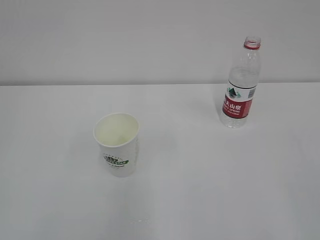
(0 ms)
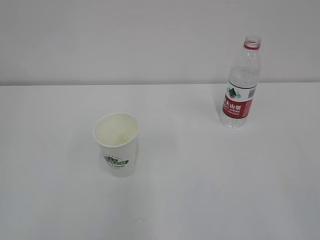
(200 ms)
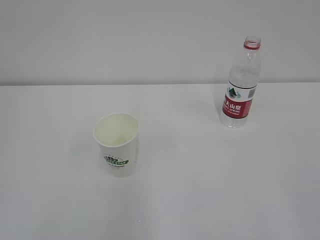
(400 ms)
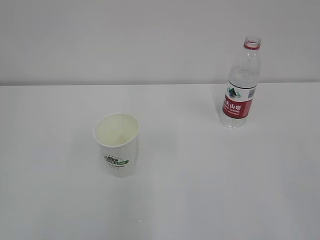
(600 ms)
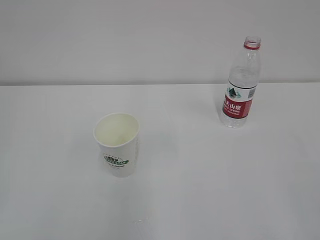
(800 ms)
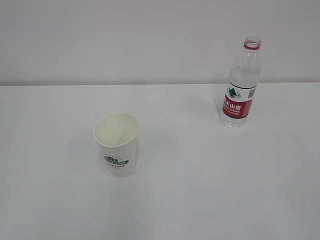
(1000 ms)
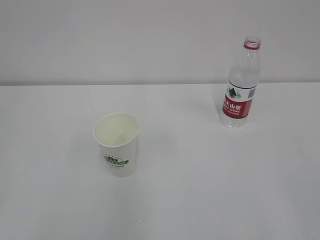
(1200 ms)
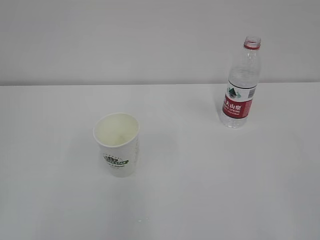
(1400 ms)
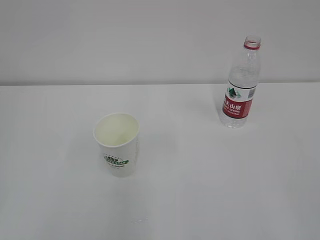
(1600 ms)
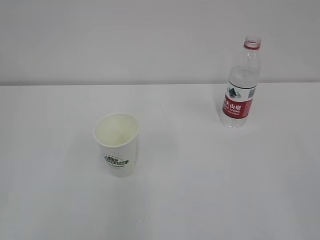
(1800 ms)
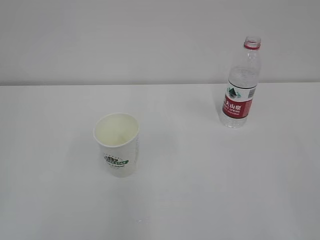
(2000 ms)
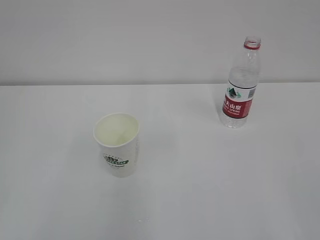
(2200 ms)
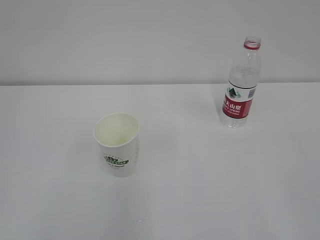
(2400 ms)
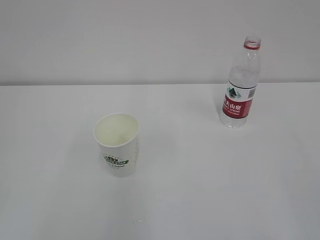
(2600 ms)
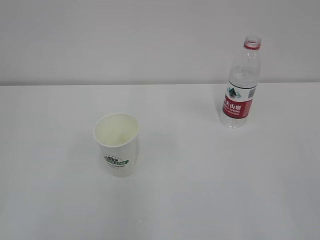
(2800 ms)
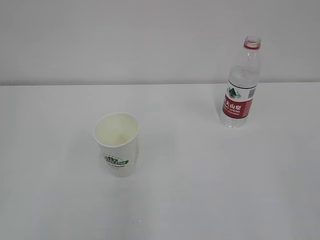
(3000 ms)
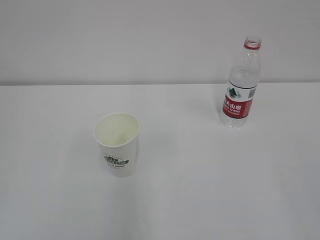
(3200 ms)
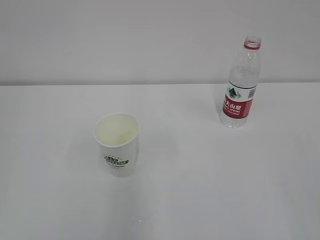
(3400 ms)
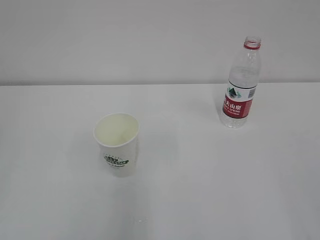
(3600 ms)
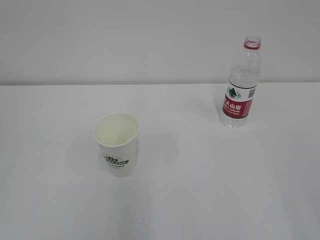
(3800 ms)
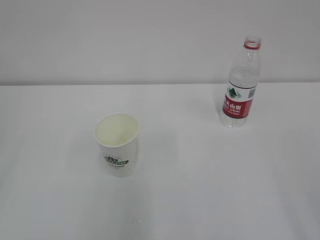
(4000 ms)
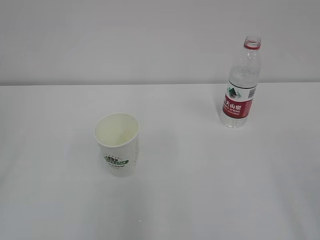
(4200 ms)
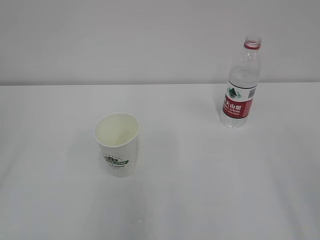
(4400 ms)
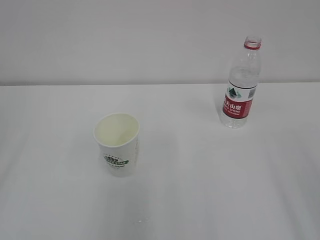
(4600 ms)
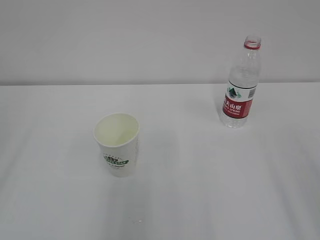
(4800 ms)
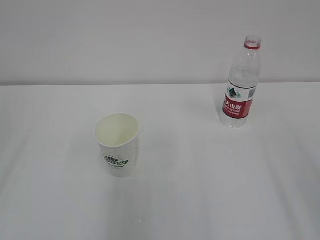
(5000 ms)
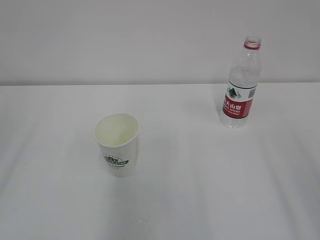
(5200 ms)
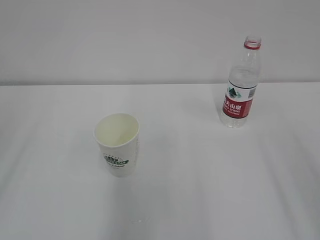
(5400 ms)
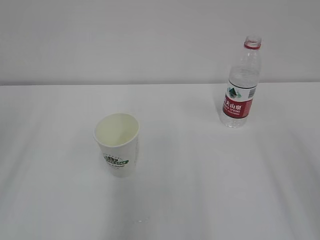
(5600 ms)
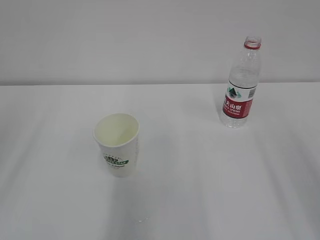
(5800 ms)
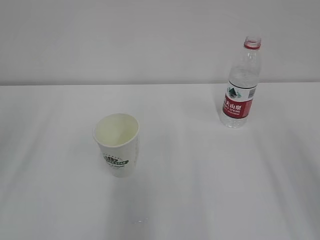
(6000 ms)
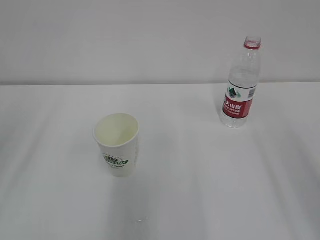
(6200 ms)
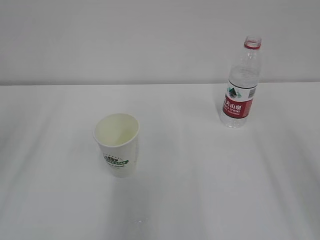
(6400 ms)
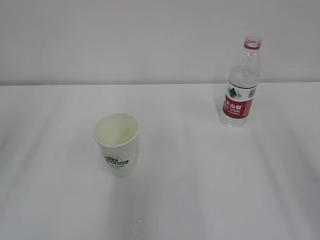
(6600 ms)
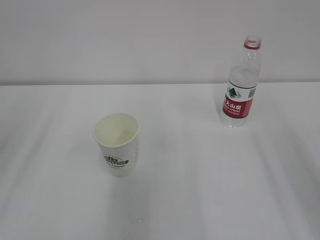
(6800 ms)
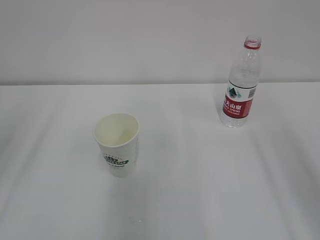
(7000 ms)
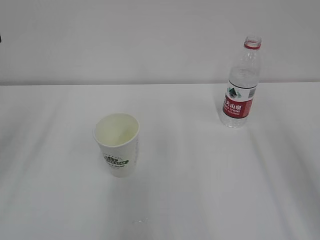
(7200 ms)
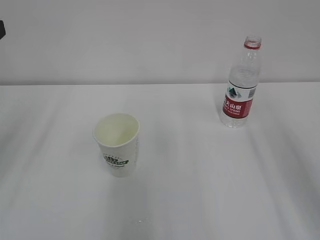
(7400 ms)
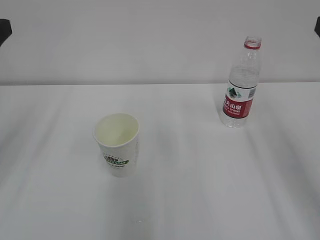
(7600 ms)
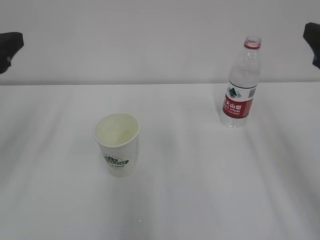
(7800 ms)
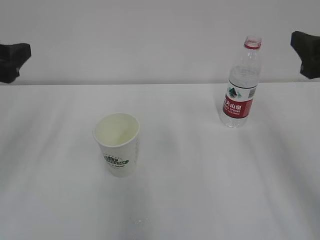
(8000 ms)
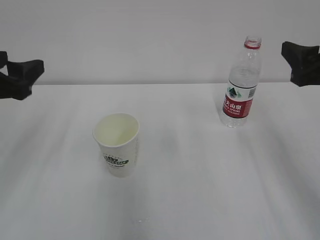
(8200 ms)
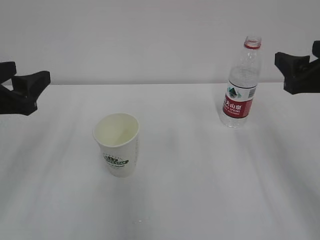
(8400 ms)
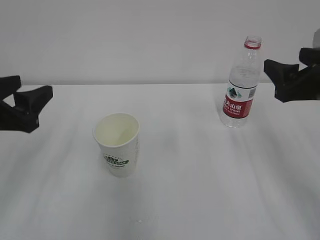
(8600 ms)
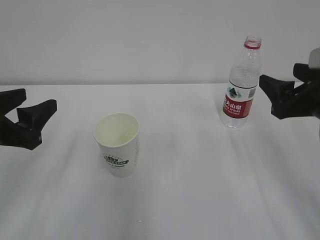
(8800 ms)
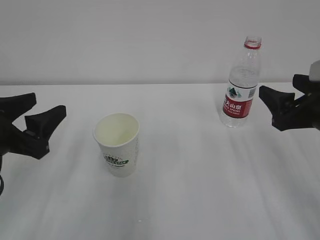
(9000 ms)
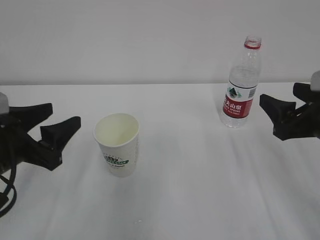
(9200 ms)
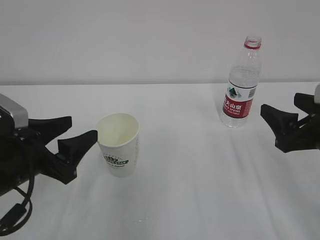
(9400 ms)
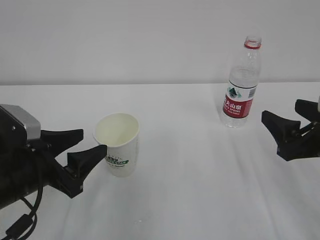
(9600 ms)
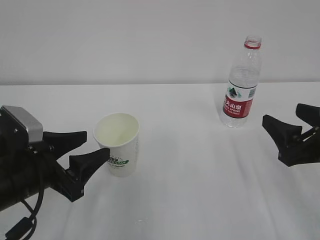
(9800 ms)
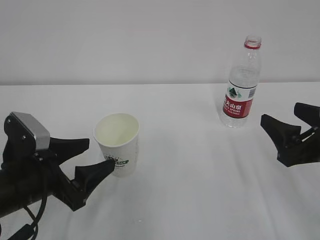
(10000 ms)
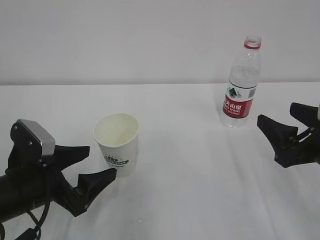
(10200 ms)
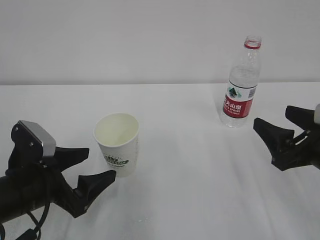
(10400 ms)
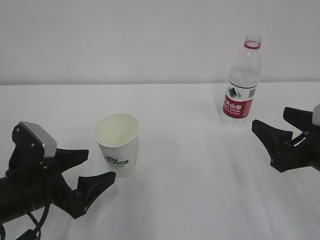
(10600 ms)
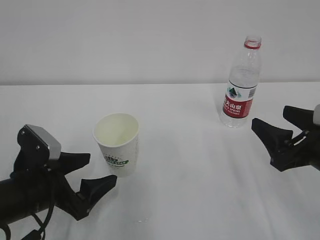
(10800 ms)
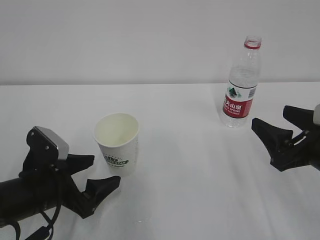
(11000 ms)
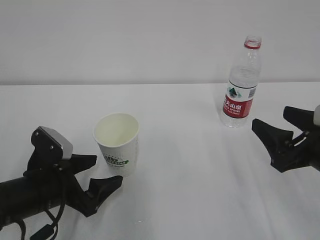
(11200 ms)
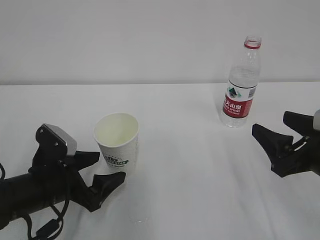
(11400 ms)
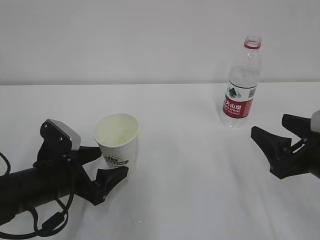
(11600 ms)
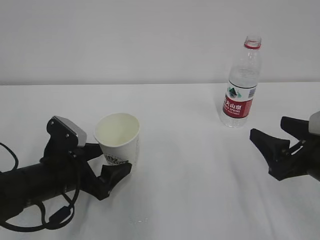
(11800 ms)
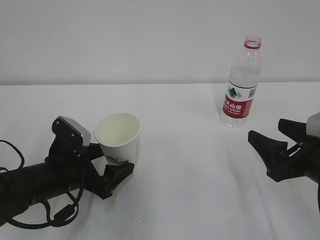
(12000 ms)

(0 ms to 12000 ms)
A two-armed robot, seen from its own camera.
7600 ms - 9000 ms: The grippers both shift downward by about 10 cm. The left gripper closes up.
9000 ms - 10400 ms: The right gripper ends up approximately 5 cm from where it was, while the left gripper is displaced downward by approximately 5 cm, and opens up.
10400 ms - 12000 ms: The left gripper shifts approximately 5 cm forward.

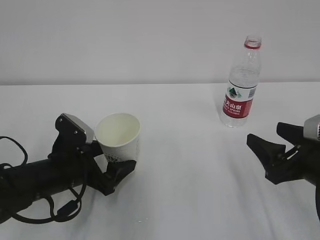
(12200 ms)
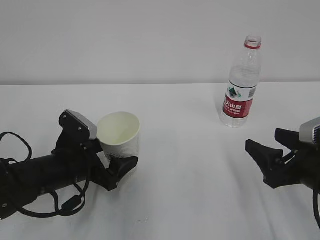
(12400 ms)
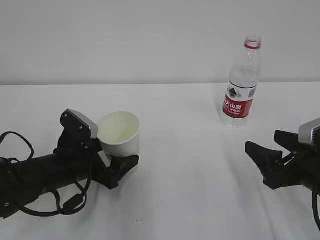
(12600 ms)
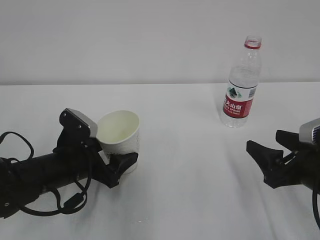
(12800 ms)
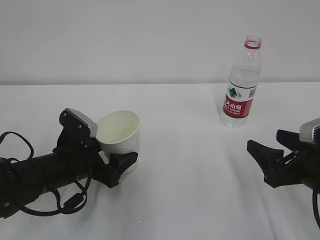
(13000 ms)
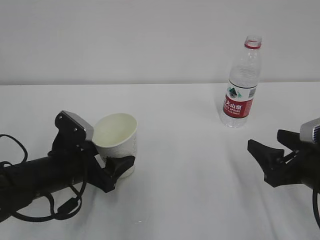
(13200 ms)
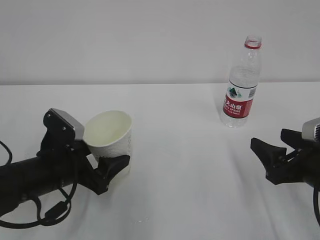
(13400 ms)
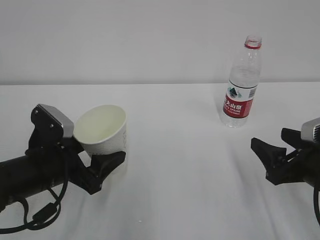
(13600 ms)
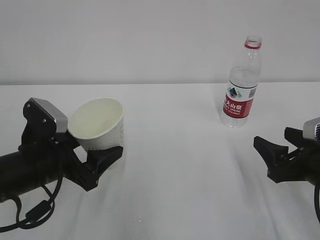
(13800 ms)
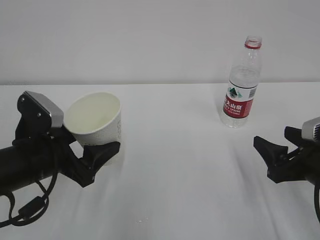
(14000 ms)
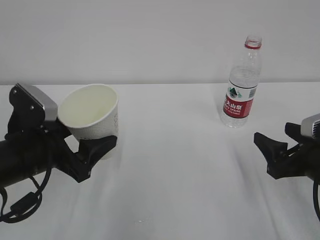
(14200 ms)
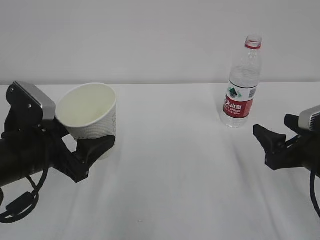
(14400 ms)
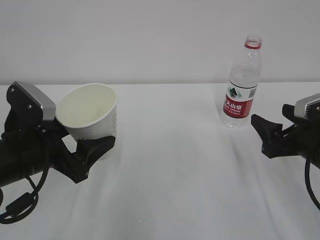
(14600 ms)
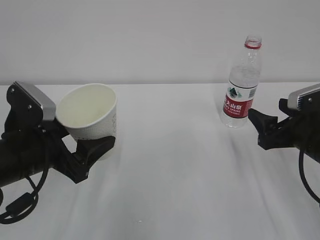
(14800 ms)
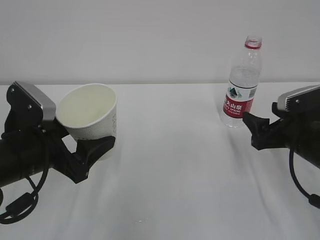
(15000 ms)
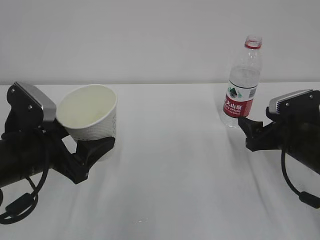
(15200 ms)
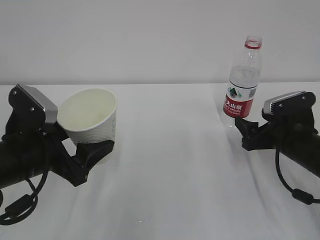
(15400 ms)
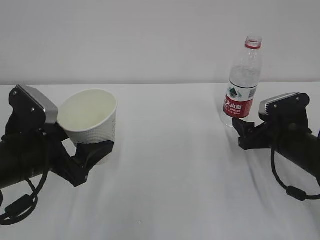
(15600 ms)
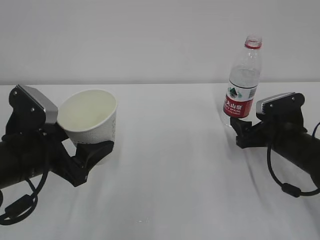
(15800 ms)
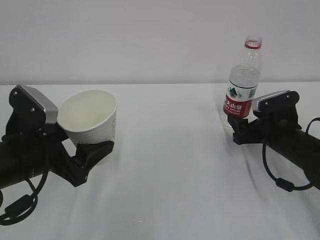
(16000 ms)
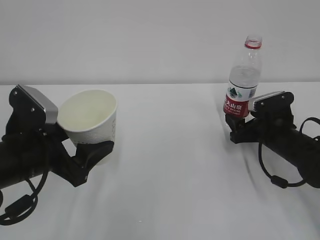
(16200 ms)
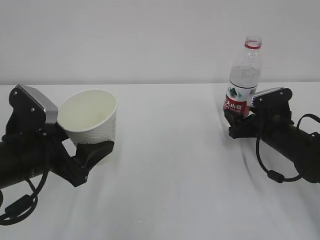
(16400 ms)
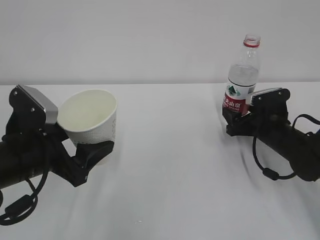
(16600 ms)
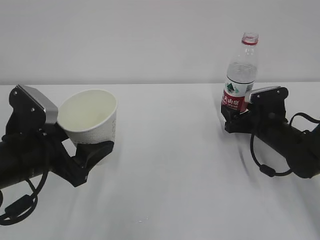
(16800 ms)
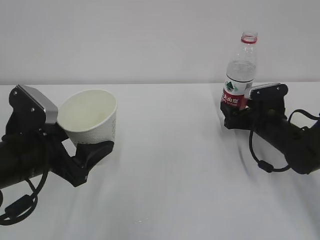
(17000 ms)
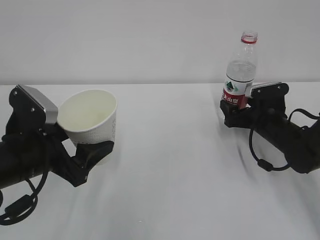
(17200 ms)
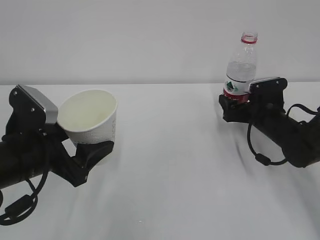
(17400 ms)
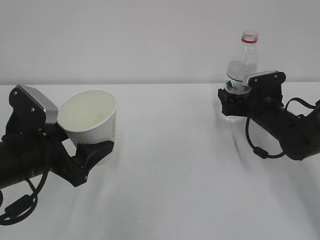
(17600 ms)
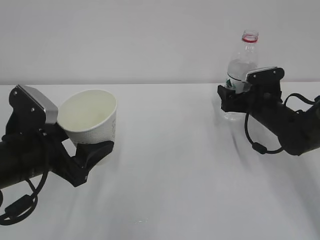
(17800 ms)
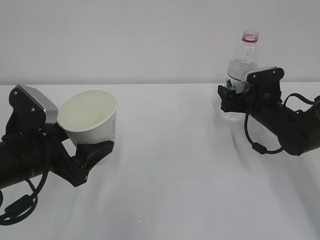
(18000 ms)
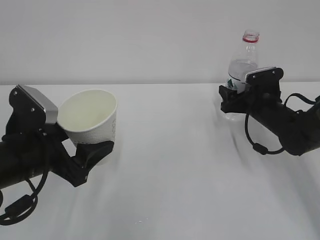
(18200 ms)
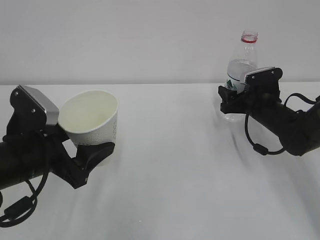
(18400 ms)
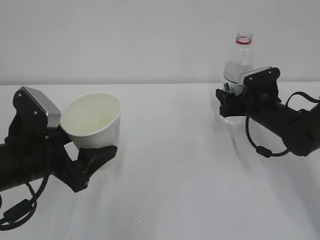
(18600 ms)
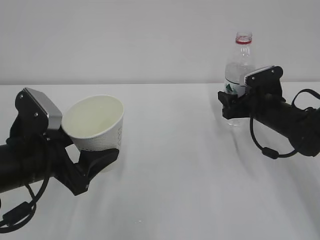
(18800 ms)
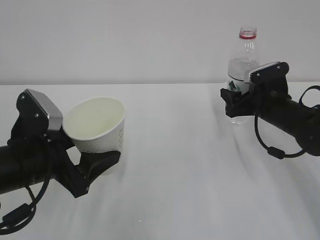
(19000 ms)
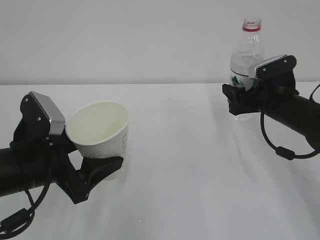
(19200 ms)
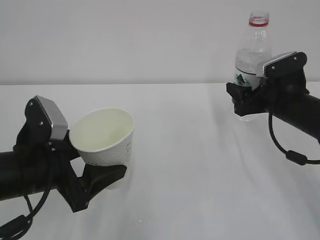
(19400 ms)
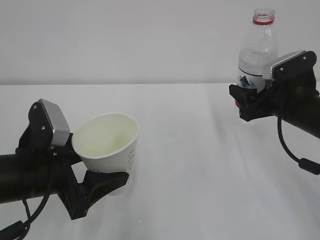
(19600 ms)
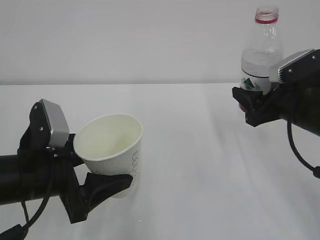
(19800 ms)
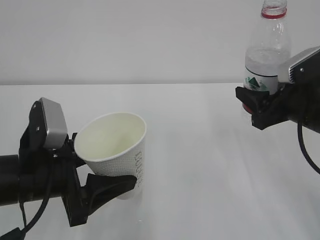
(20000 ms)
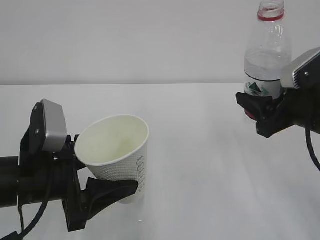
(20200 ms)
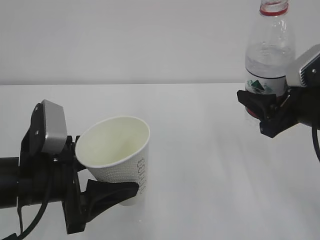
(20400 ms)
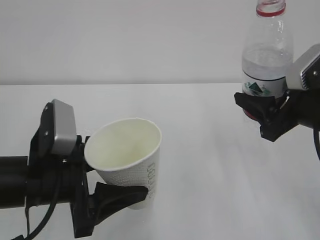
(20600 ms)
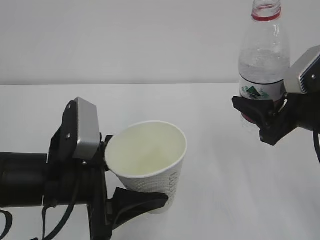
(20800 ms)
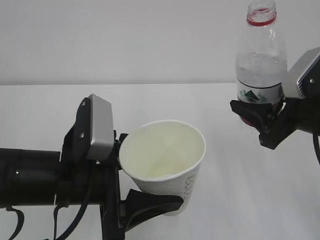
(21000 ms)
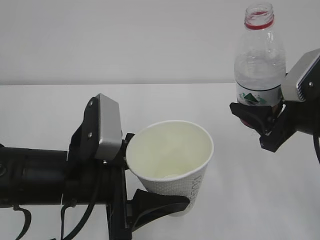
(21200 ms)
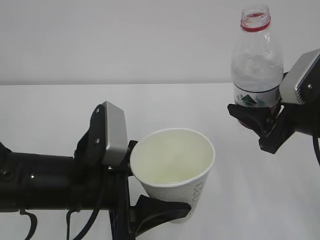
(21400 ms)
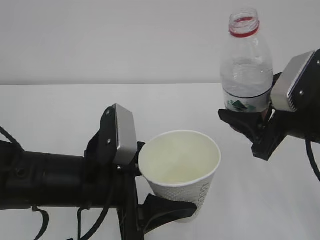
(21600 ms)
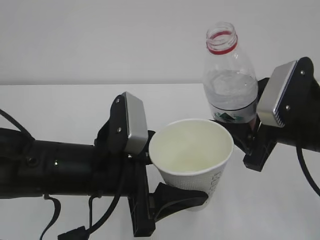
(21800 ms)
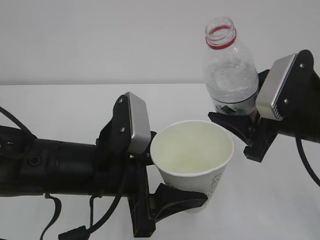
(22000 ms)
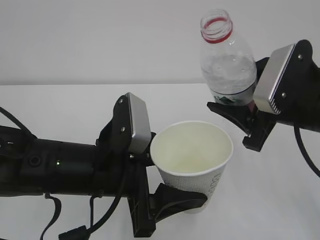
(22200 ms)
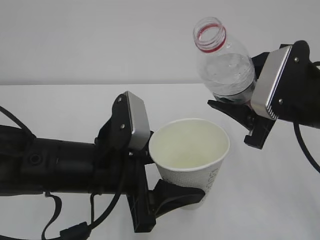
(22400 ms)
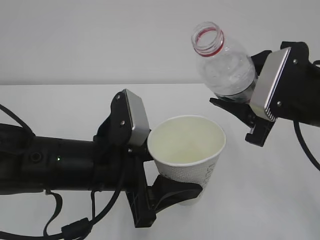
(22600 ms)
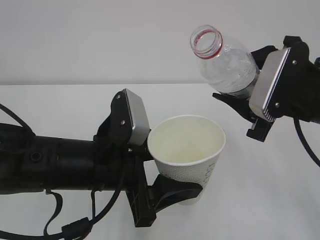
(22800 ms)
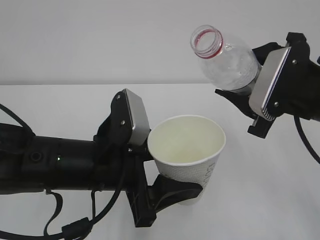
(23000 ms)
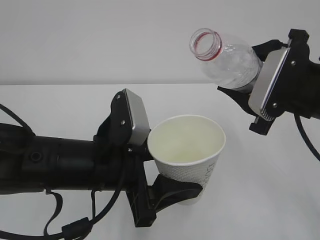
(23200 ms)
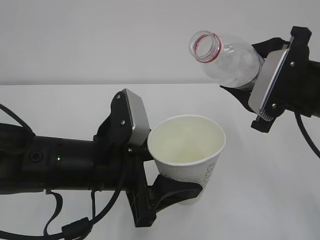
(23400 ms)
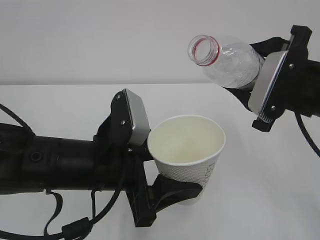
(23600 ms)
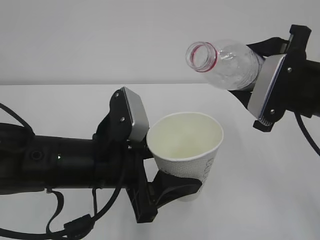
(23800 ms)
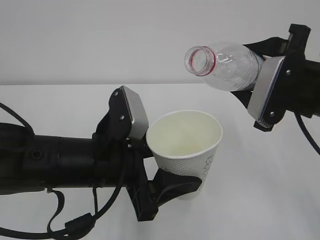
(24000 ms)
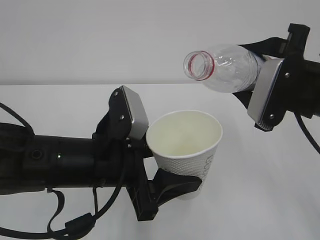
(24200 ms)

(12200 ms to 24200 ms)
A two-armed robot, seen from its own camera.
12200 ms - 13800 ms: The left gripper goes about 5 cm upward, and closes.
13800 ms - 15200 ms: The right gripper shifts some 10 cm forward.
15200 ms - 16600 ms: The right gripper is displaced forward by about 10 cm.
16600 ms - 18200 ms: The right gripper moves about 5 cm, and opens and closes again.
18200 ms - 19800 ms: The right gripper heads backward and upward, covering some 15 cm.
19800 ms - 21200 ms: The left gripper shifts some 5 cm to the right; the right gripper heads backward, covering about 5 cm.
